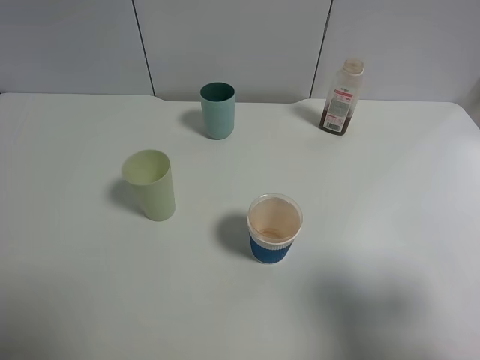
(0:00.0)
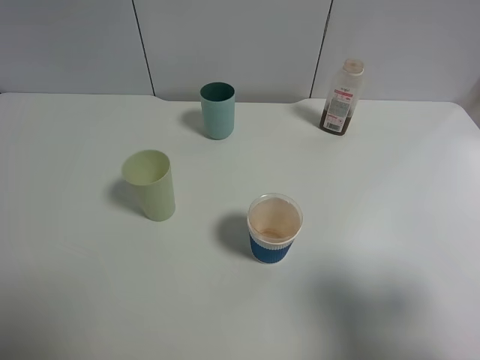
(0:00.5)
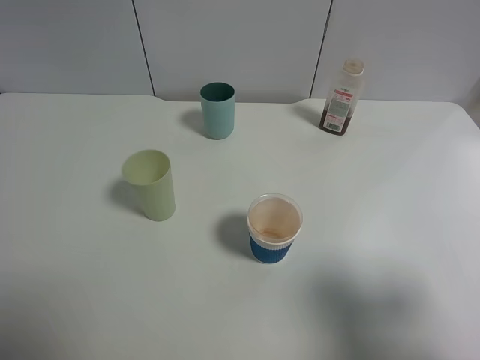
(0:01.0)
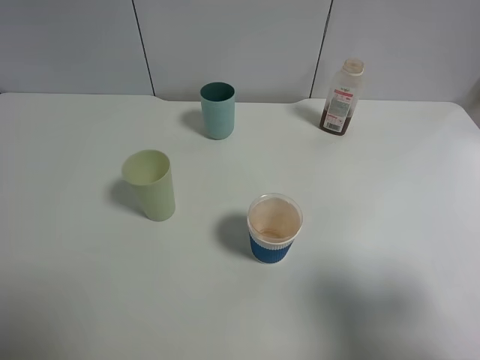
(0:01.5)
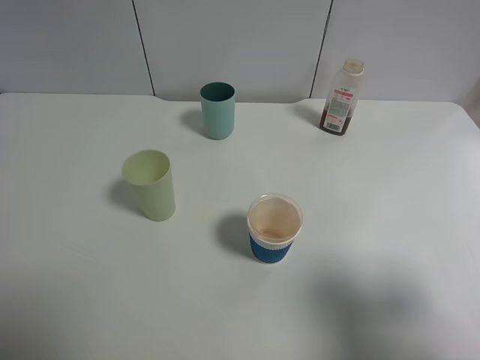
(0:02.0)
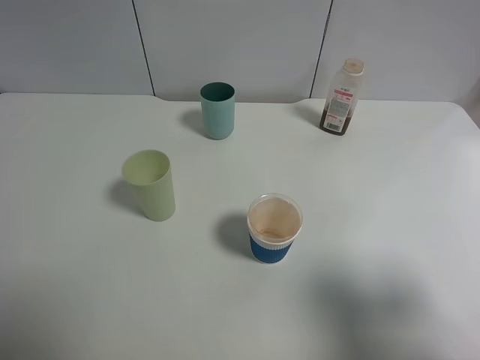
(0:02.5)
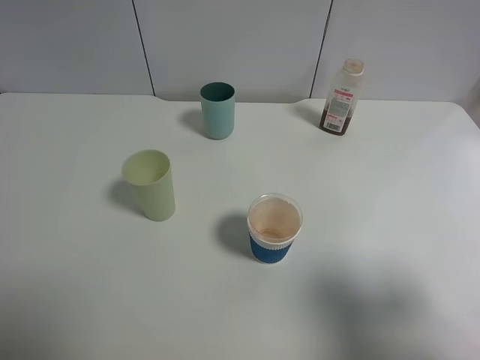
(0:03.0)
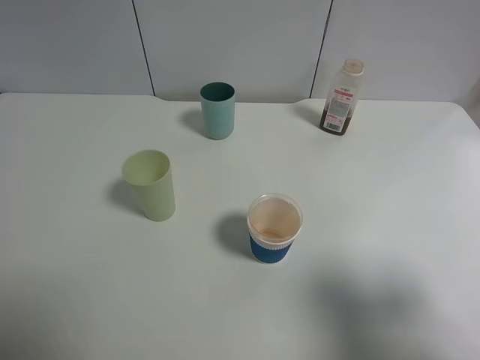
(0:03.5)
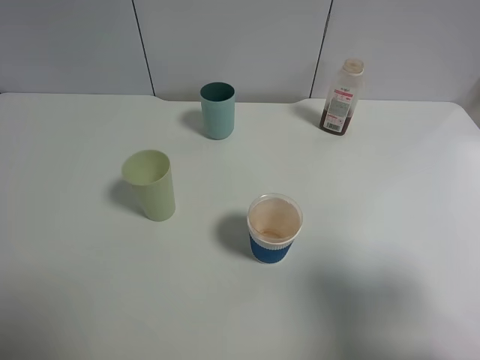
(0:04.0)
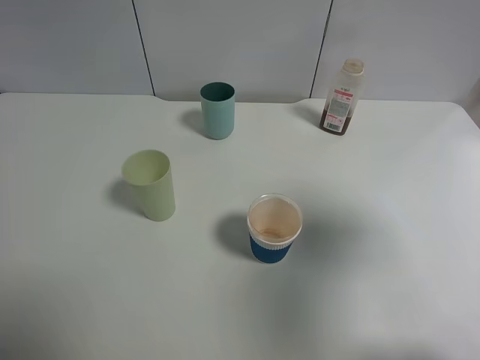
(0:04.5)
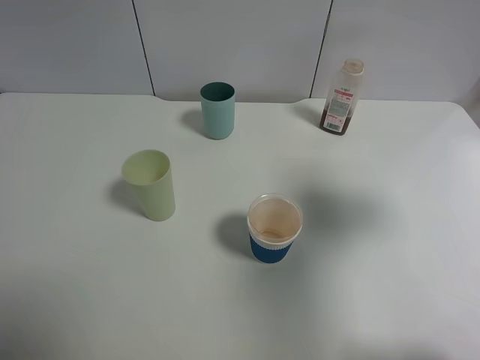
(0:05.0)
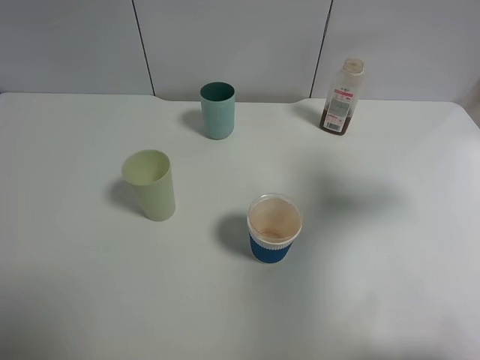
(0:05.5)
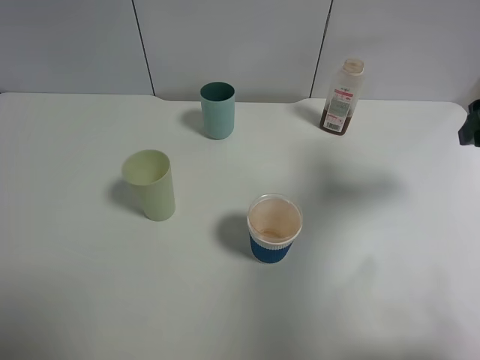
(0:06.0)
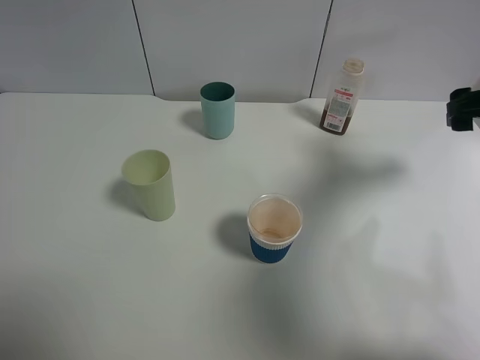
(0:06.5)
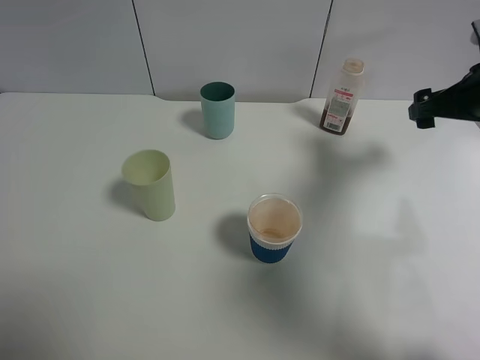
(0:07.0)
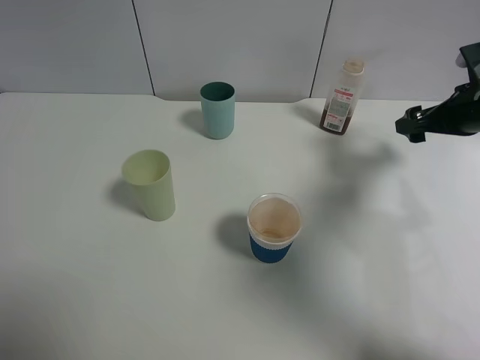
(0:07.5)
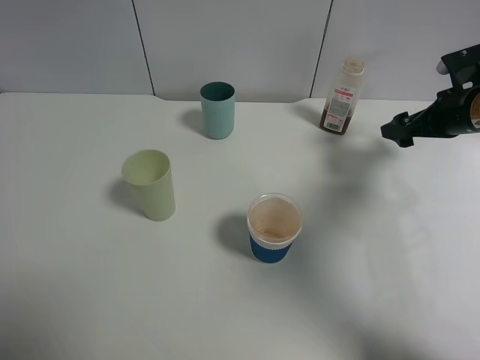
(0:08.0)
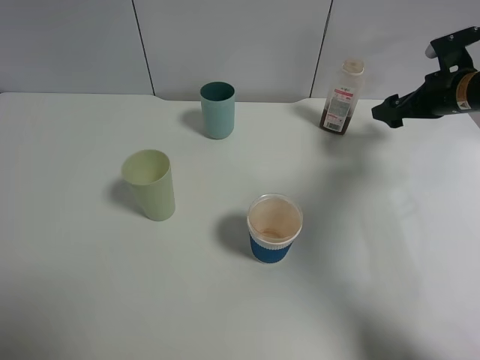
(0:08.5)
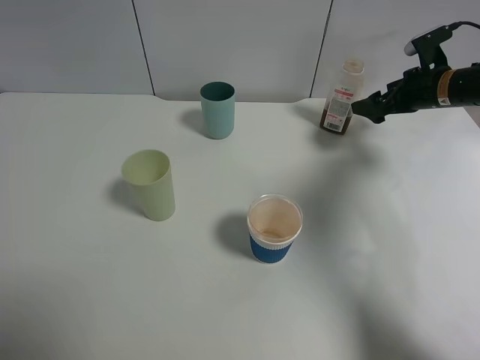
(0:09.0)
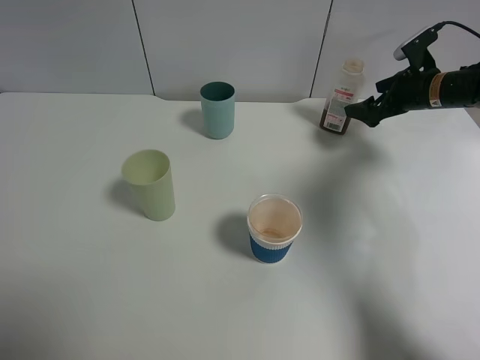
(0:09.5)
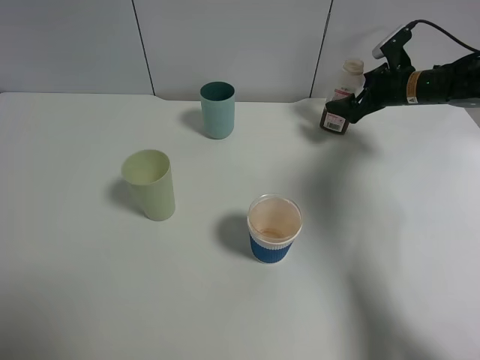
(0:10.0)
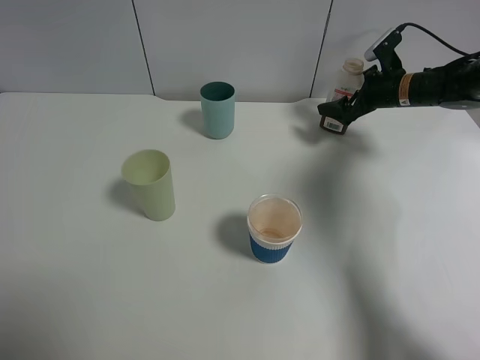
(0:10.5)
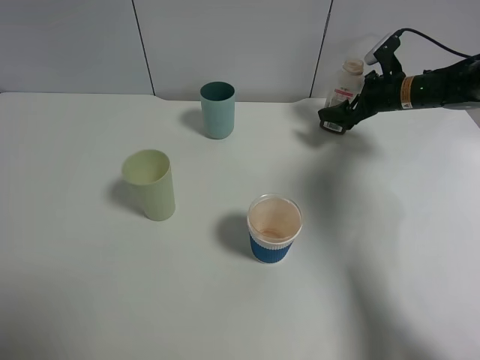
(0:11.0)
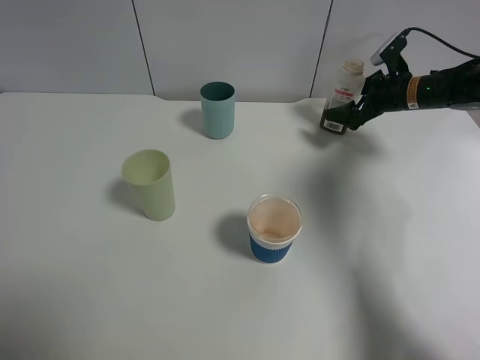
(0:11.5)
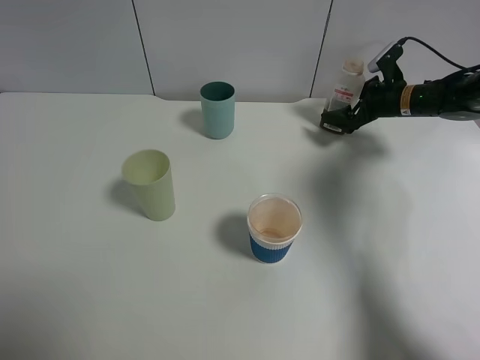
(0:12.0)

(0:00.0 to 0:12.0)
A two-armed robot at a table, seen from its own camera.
Task of the whole recording: use a gripper to hold the bottle of the drink and pour it into a random cup.
0:00.0 - 0:02.0: The two grippers keep their place.
0:04.0 - 0:06.0: The right gripper heads forward, covering approximately 20 cm.
0:06.0 - 0:08.0: The right gripper shifts approximately 15 cm forward and downward.
0:08.0 - 0:10.0: The right gripper travels forward by some 10 cm.
0:10.0 - 0:12.0: The grippers make only small movements.

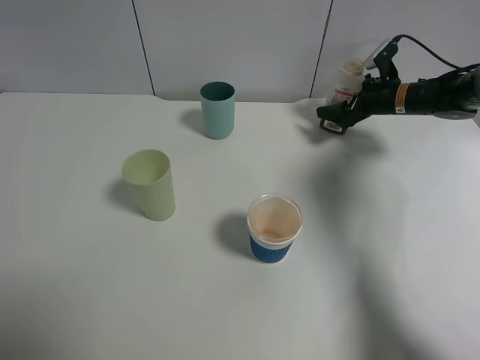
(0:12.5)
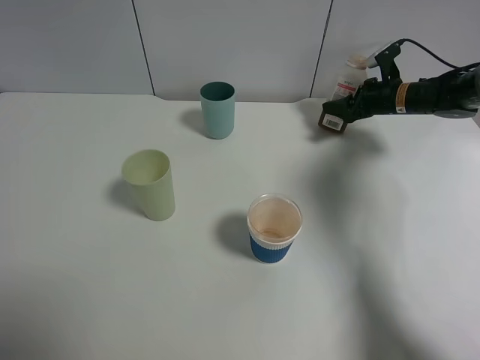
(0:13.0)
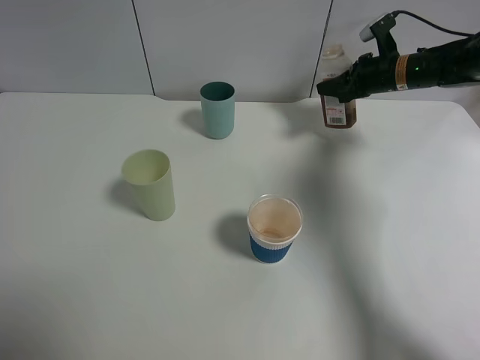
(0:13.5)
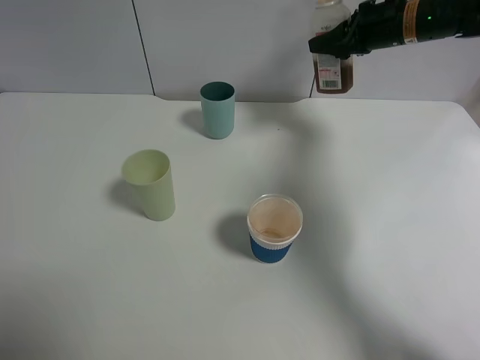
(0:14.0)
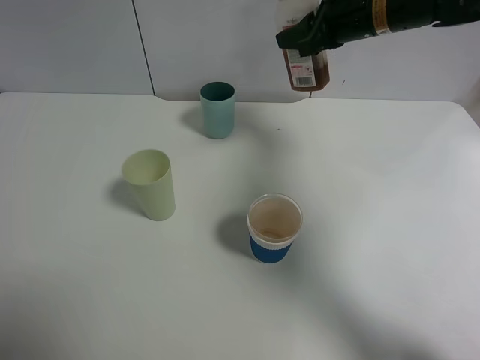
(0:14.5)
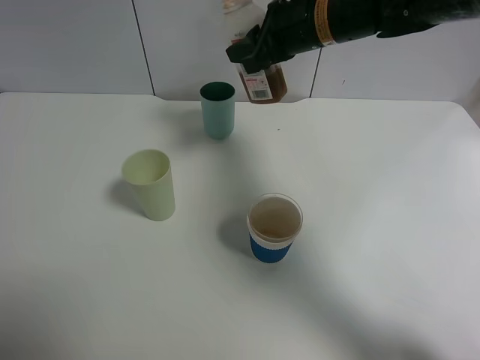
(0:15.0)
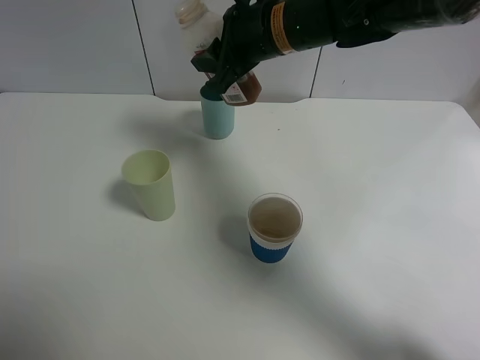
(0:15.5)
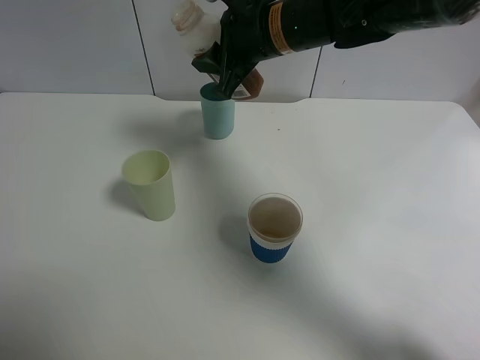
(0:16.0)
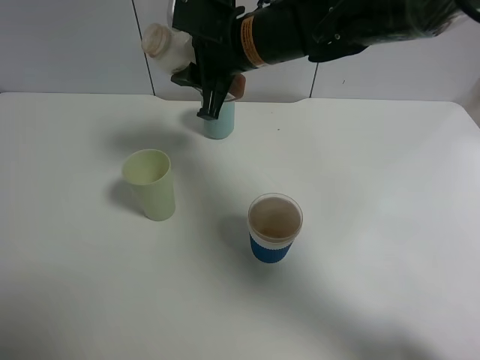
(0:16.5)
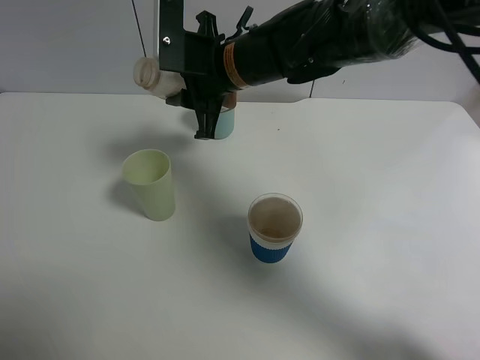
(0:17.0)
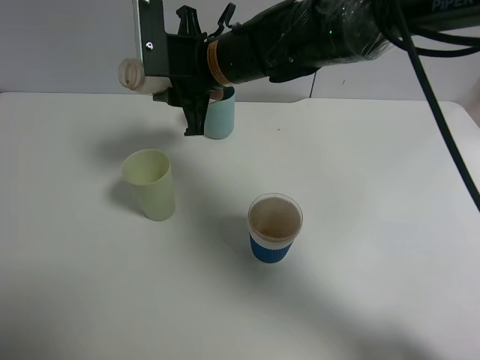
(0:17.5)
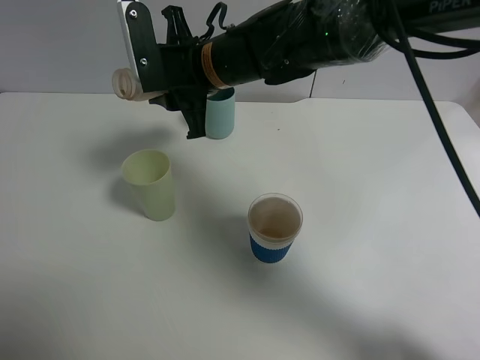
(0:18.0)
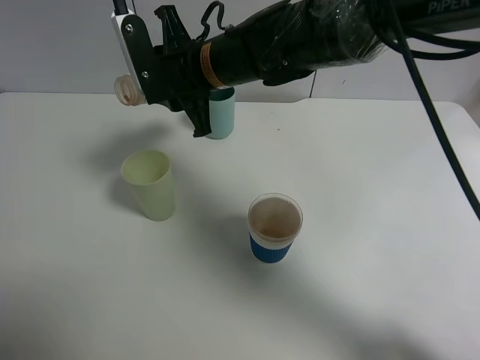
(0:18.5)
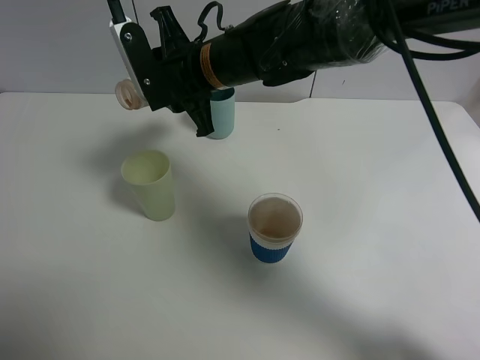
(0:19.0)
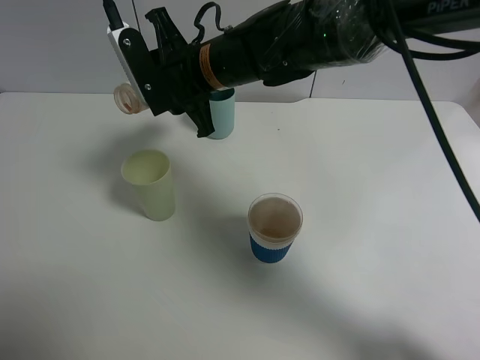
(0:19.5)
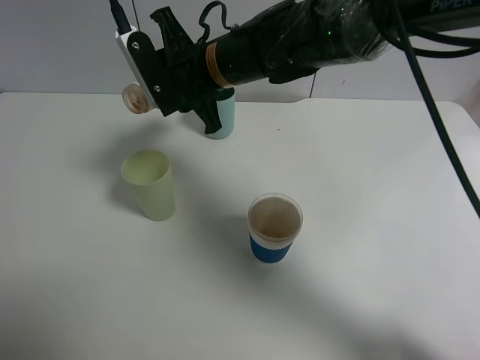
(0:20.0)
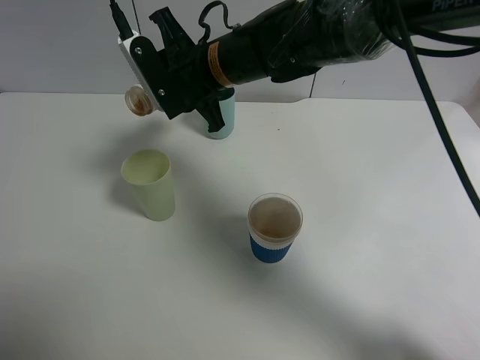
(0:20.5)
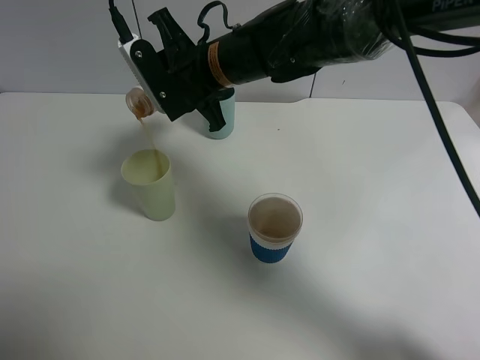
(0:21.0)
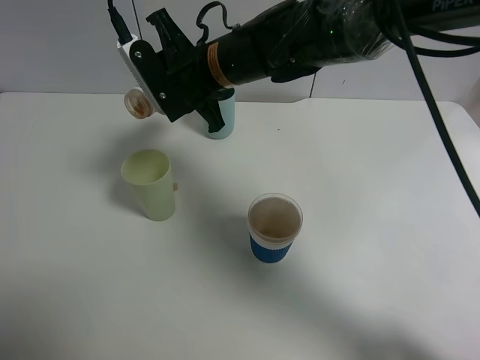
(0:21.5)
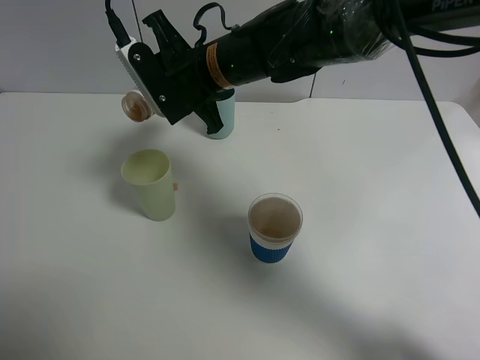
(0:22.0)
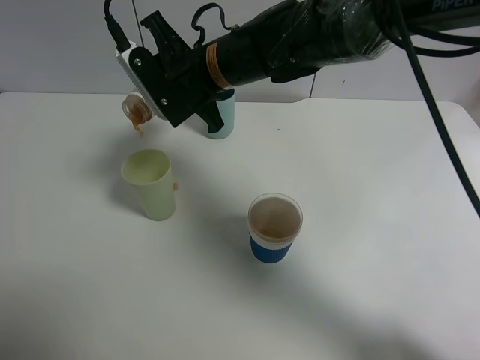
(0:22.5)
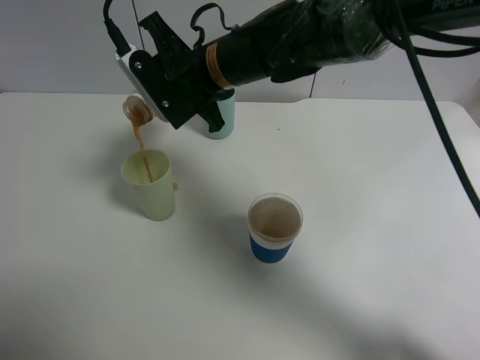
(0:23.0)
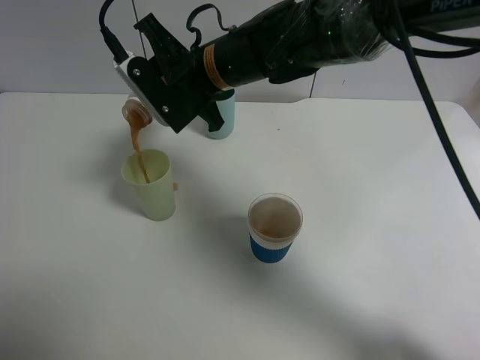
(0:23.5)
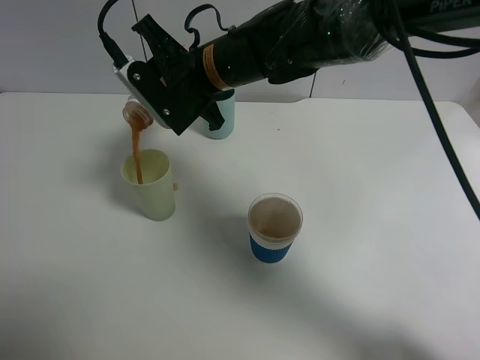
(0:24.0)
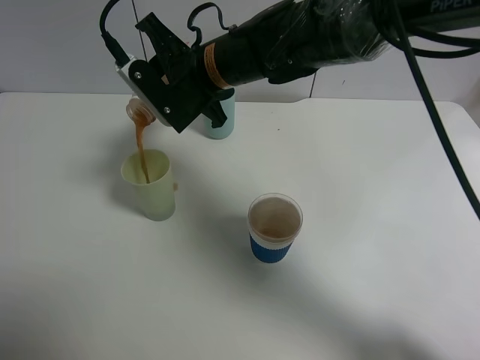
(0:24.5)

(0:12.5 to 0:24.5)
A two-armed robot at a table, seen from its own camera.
Task of the whole recording: use a gripper to hold the bottle of the drink and pour it into a random cup.
0:12.5 - 0:14.5: The right gripper shifts roughly 20 cm upward, to the left and backward, and closes its fingers.
0:14.5 - 0:16.5: The right gripper goes roughly 15 cm to the left and backward.
0:18.5 - 0:22.5: There are only small adjustments of the grippers.
0:22.5 - 0:24.5: There are only small adjustments of the grippers.

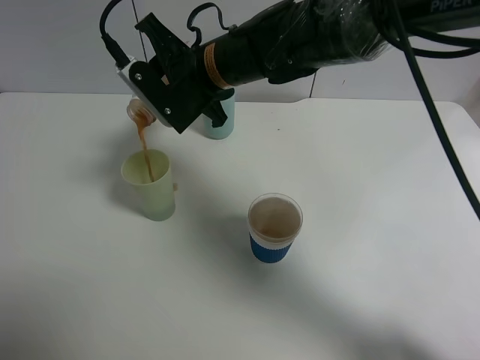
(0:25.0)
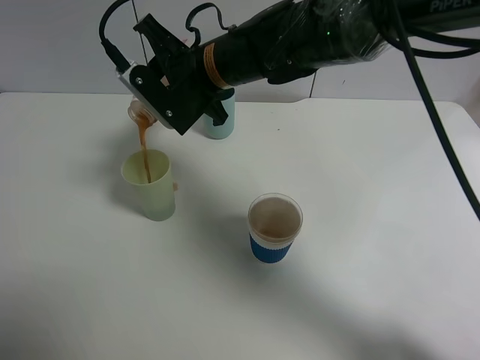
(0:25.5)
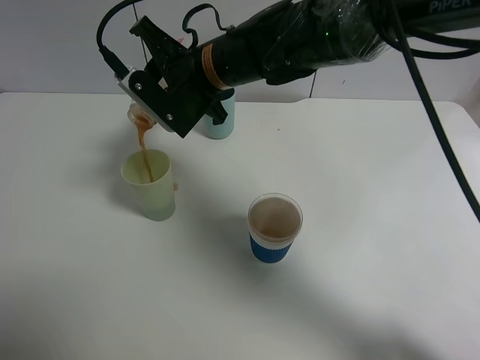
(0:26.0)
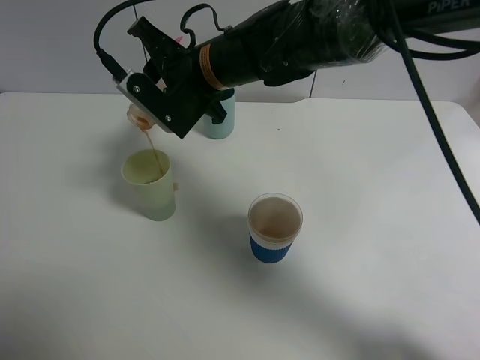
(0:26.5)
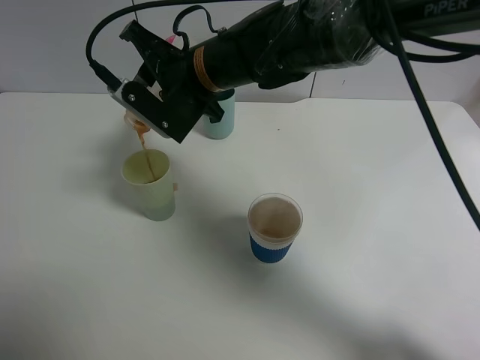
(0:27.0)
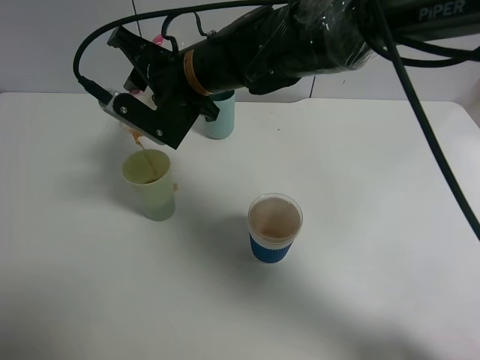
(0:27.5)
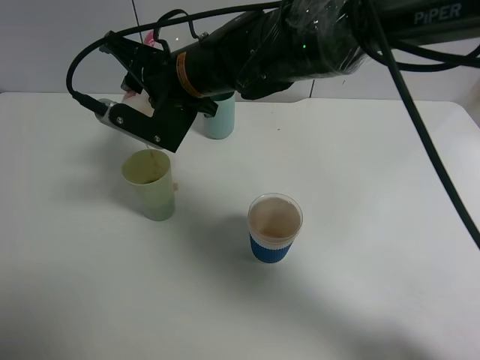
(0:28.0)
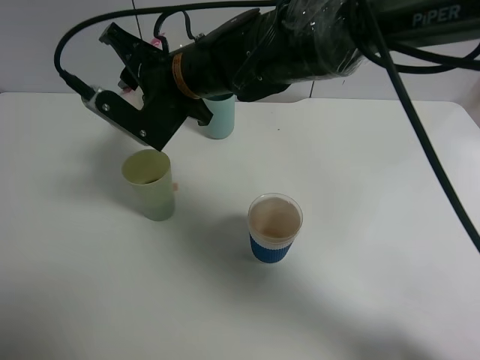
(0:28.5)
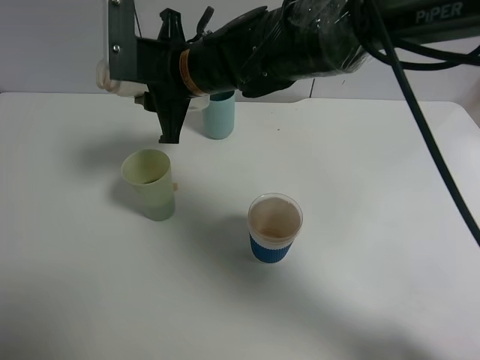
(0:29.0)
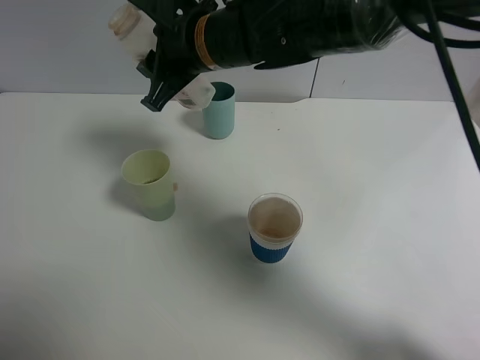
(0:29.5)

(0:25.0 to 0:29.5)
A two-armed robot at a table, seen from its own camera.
Task of the whole recording: use a gripper to hold the bottle of the drink and pour it into a random cup.
Step, 0:25.0 - 0:28.5: Pour the cranberry juice into the White Plastic Cup with the right gripper.
0:25.0 - 0:27.0: The grippers move only a little.
